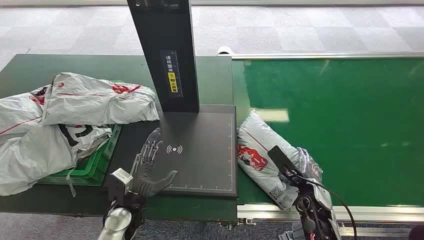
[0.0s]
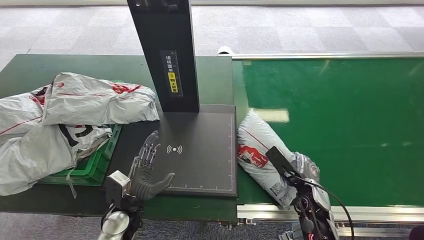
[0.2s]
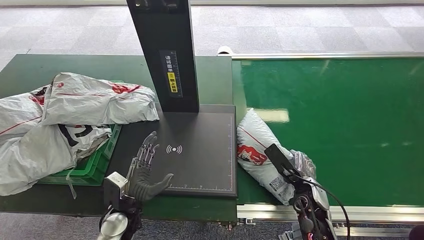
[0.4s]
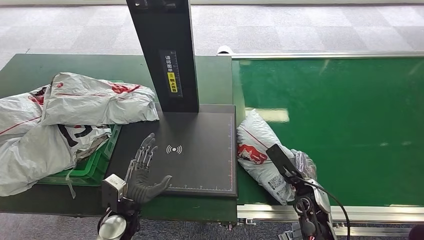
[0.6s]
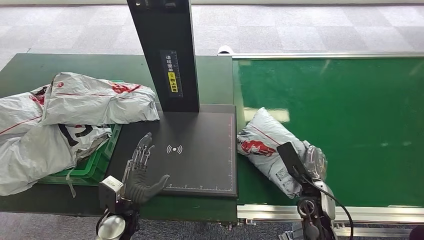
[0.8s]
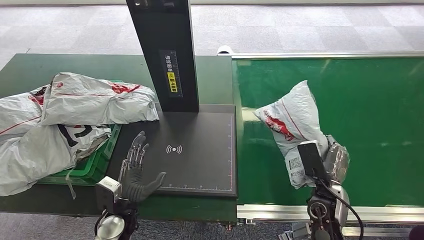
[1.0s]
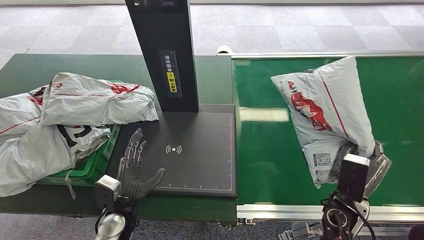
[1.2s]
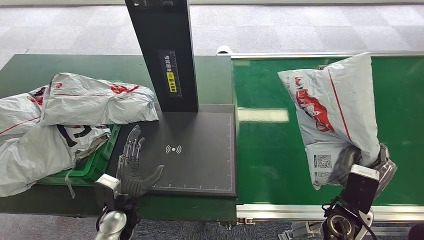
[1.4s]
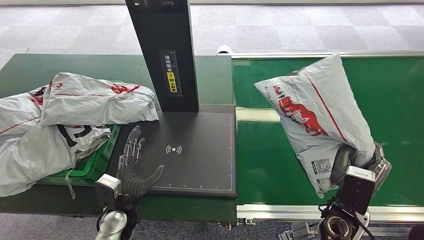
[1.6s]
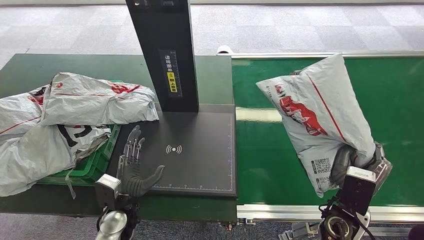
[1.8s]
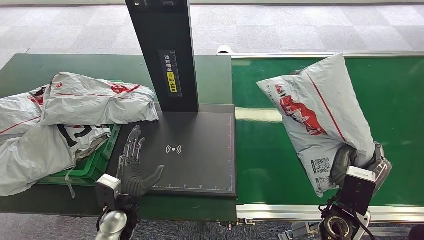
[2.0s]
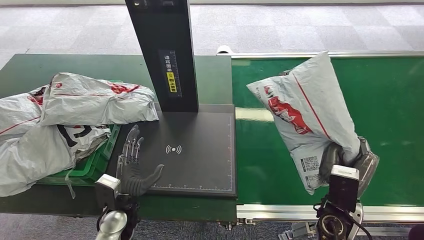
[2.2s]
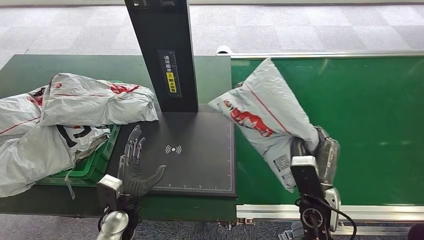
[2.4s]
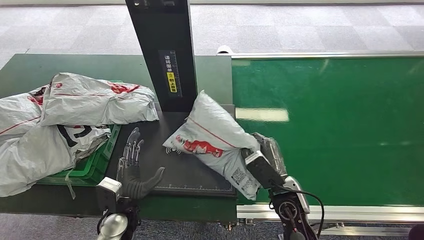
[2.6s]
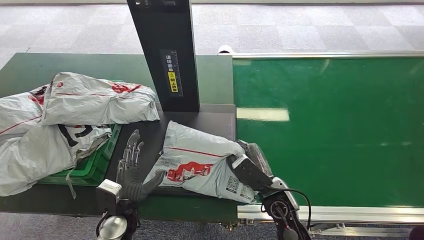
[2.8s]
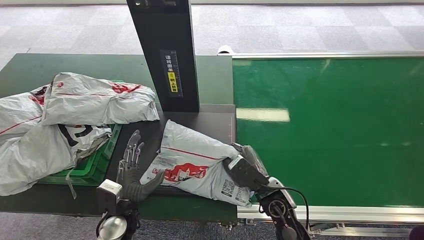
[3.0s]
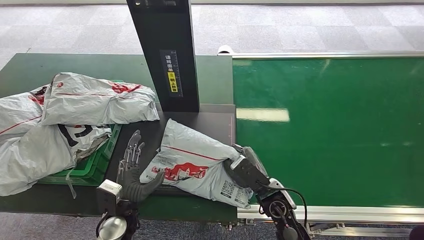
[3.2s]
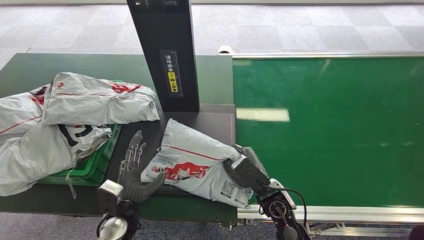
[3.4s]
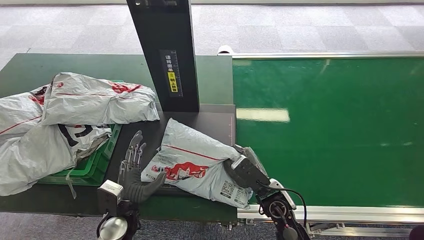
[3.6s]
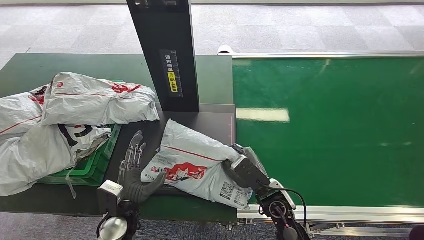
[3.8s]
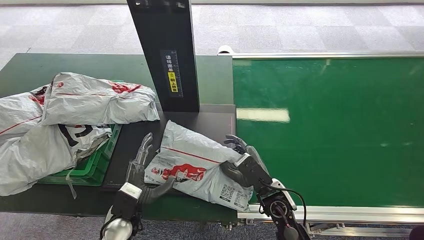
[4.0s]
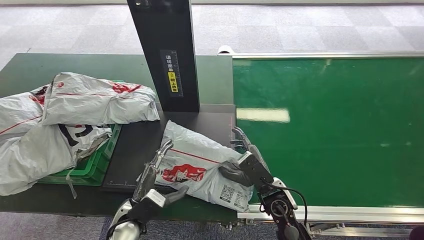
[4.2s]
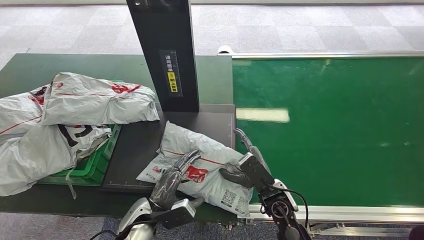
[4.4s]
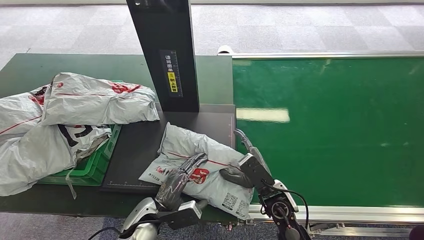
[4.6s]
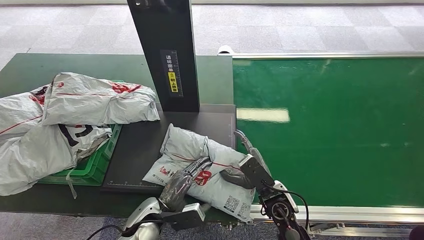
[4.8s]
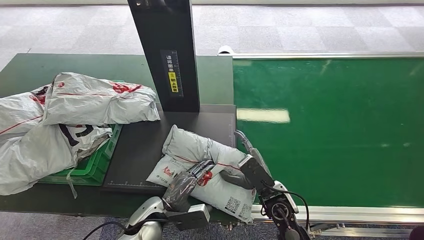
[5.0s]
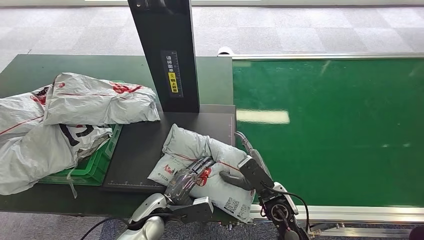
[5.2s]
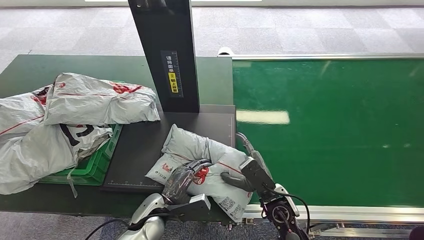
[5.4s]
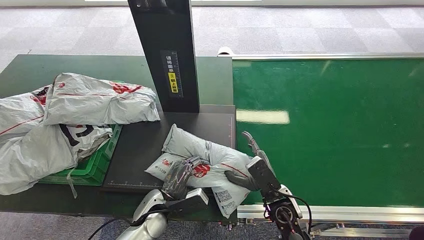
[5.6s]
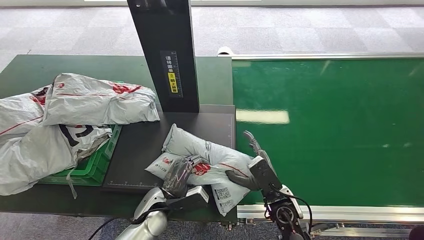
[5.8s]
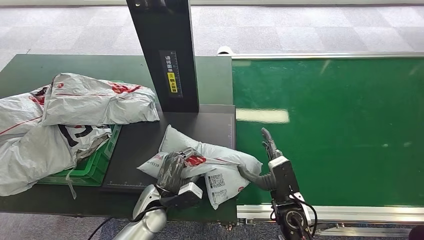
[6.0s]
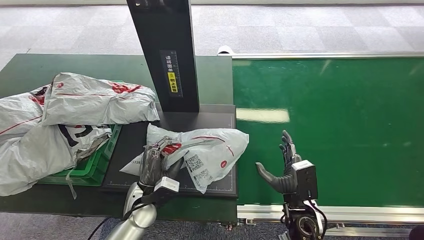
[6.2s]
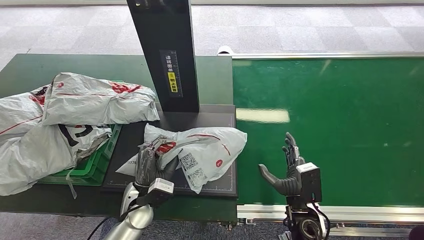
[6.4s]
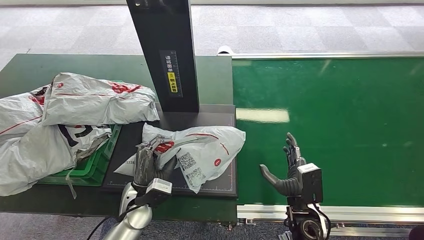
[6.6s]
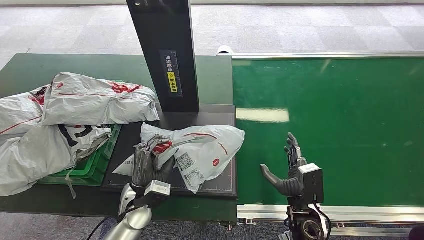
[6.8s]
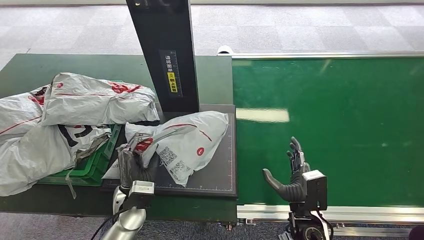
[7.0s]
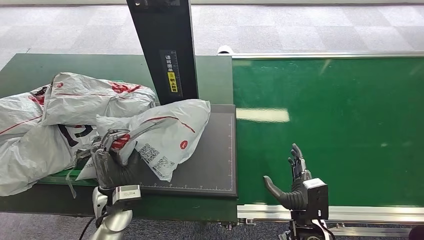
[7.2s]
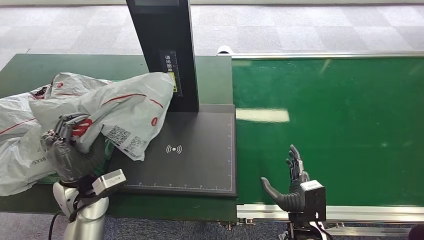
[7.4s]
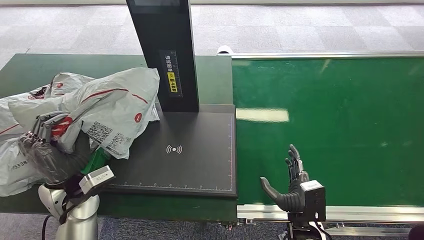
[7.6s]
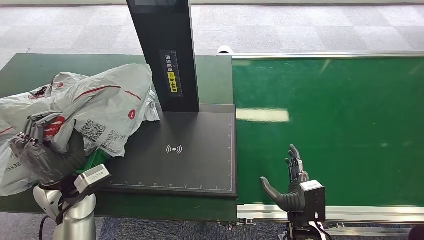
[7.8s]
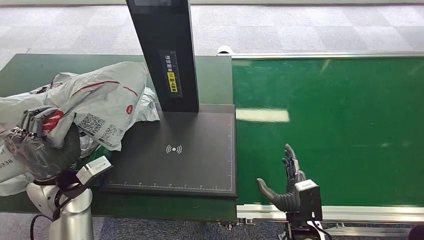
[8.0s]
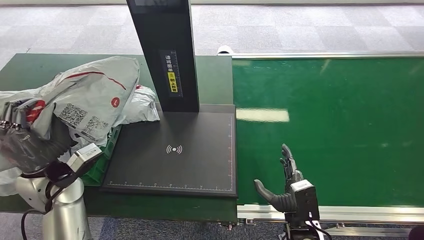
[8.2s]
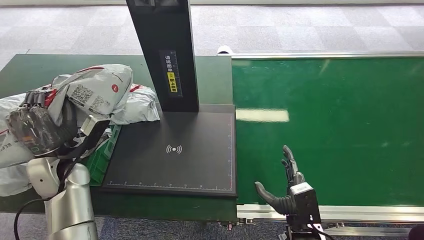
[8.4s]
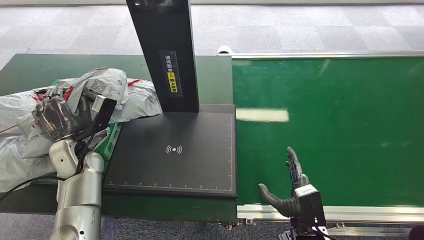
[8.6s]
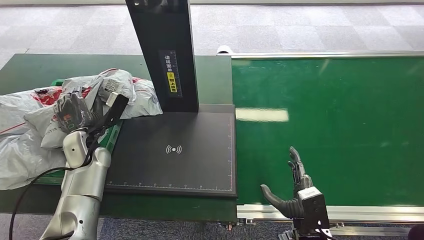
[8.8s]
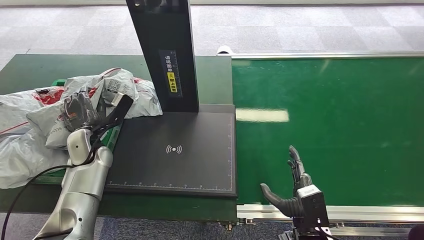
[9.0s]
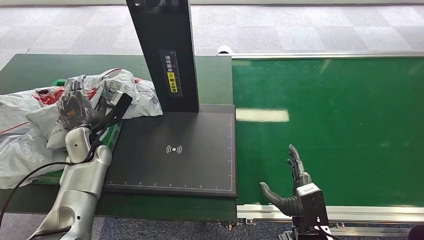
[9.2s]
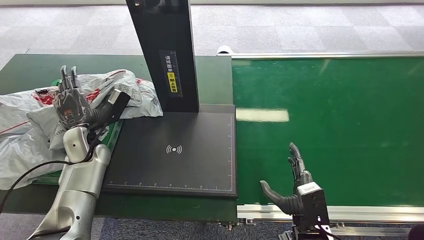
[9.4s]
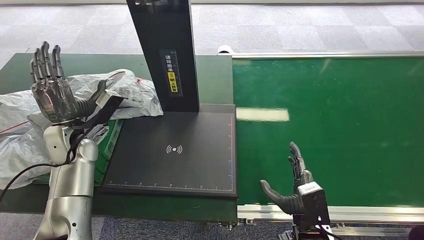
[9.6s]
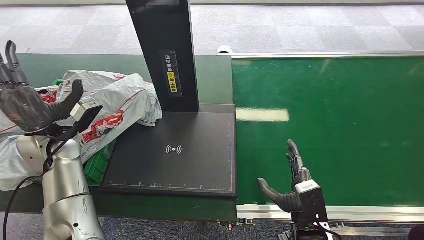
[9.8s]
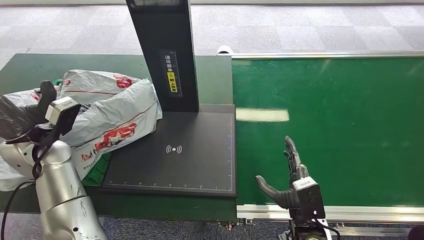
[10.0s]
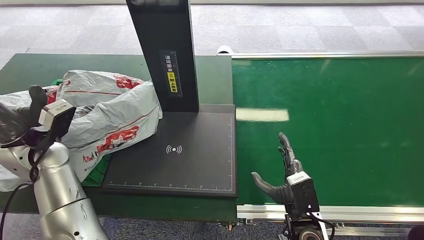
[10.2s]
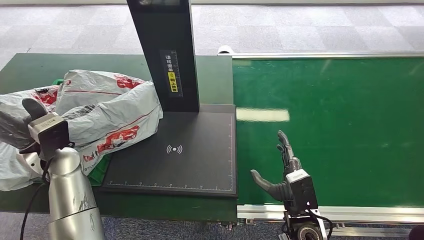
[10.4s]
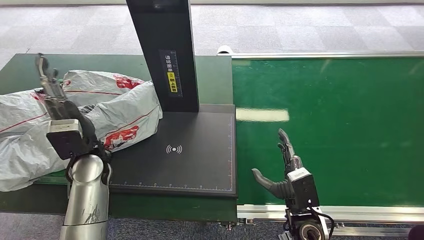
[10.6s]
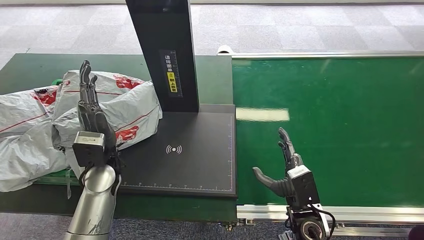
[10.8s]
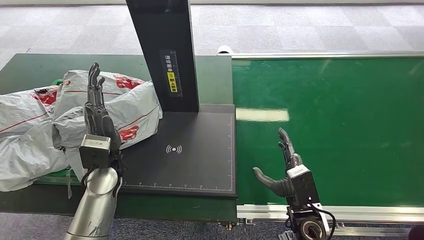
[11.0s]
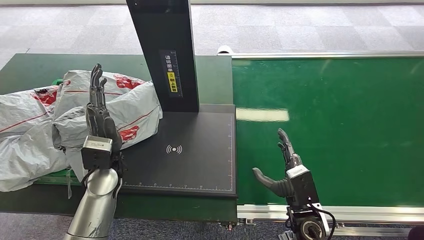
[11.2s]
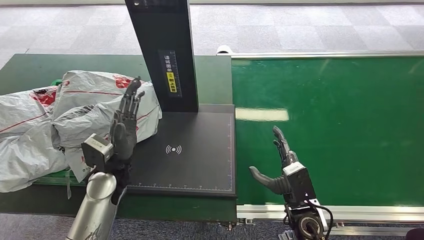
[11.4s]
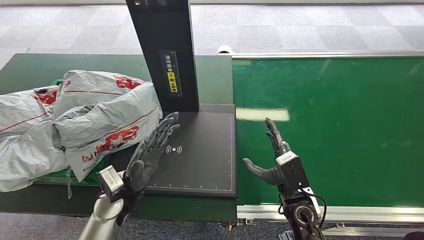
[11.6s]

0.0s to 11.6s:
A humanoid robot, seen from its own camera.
Step, 0.0s to 2.0s: Pick up the package from the conveyor belt.
Step, 2.2s to 4.8s: Place the package onto the inbound machine.
Step, 5.0s to 8.0s: Pick up the package from the inbound machine.
Step, 8.2s to 11.6s: Place the package into the parcel locker.
4.4s to 5.8s: There are only small adjustments of the hands.
5.8s to 7.2s: The right hand travels backward by approximately 5 cm, while the left hand shifts approximately 10 cm upward and to the left.
8.8s to 10.2s: The left hand goes roughly 10 cm upward and backward.
10.2s to 11.6s: The right hand shifts some 5 cm forward; the left hand travels to the right and downward by about 20 cm.
